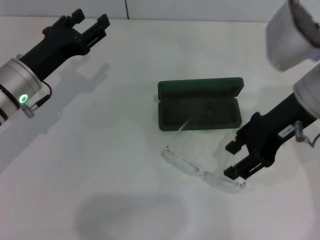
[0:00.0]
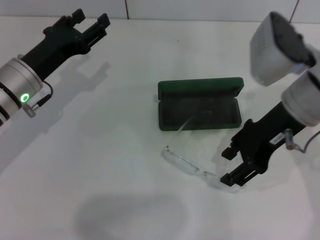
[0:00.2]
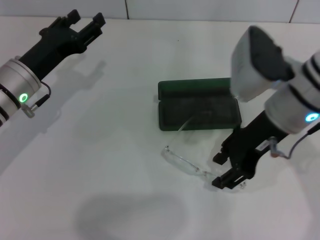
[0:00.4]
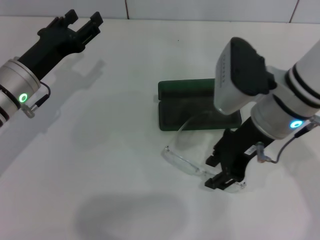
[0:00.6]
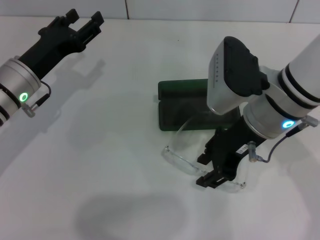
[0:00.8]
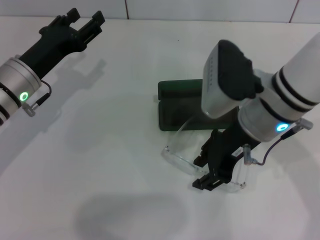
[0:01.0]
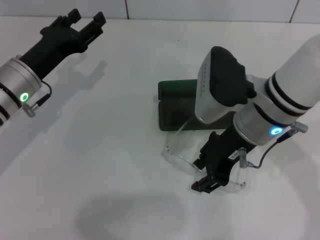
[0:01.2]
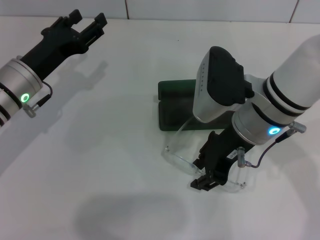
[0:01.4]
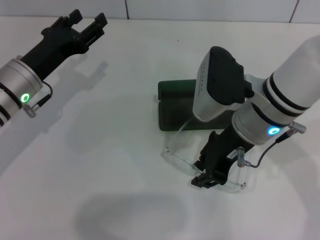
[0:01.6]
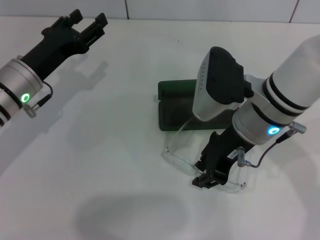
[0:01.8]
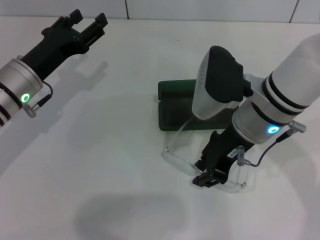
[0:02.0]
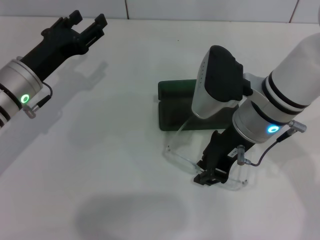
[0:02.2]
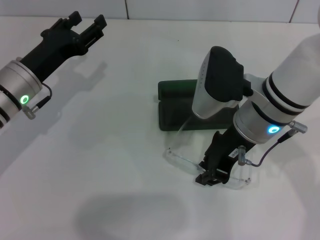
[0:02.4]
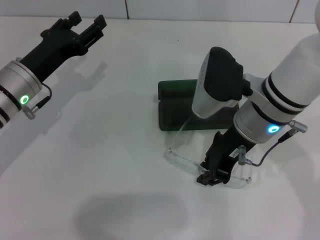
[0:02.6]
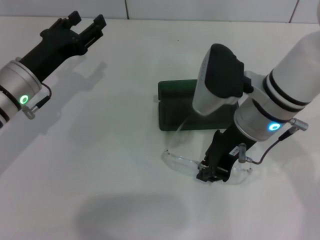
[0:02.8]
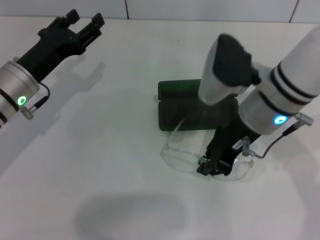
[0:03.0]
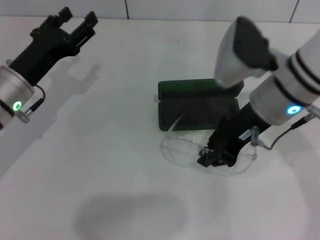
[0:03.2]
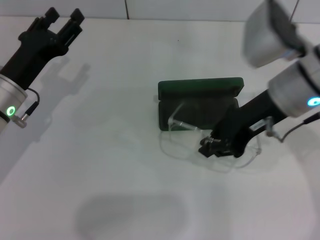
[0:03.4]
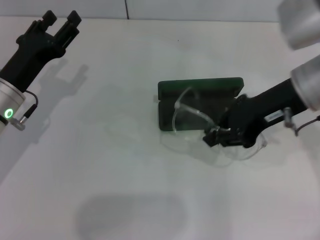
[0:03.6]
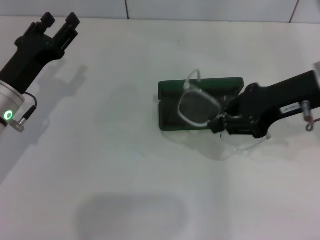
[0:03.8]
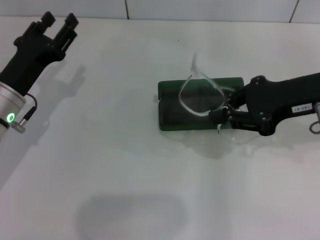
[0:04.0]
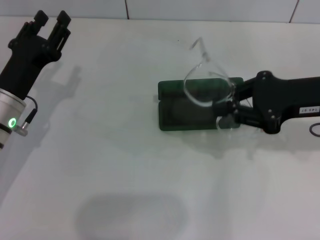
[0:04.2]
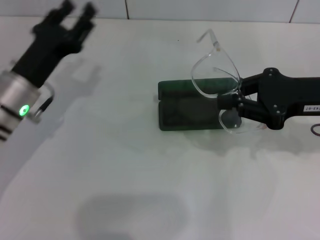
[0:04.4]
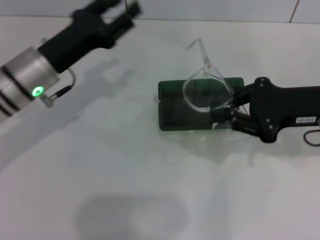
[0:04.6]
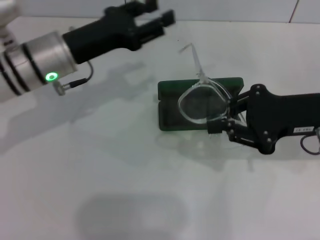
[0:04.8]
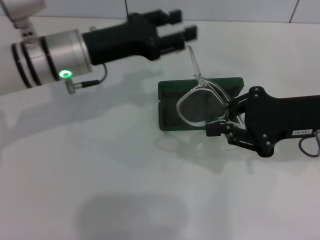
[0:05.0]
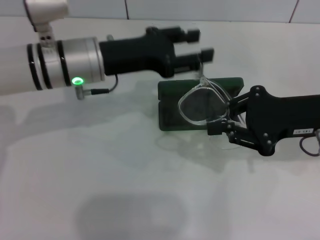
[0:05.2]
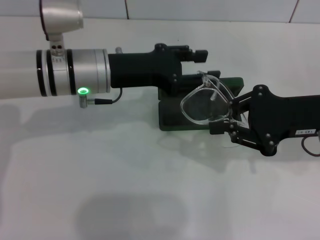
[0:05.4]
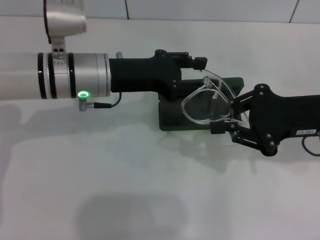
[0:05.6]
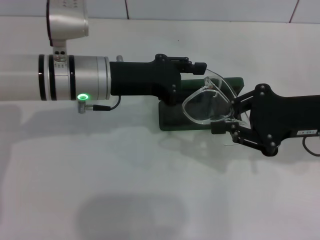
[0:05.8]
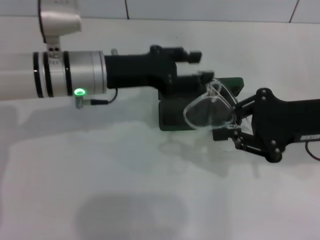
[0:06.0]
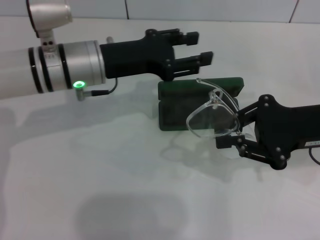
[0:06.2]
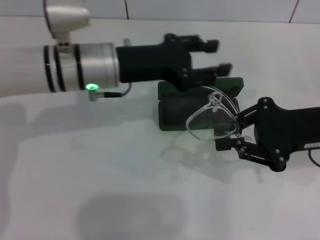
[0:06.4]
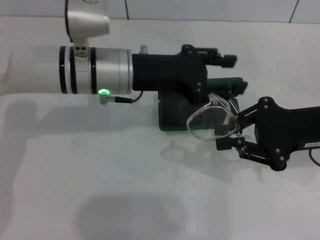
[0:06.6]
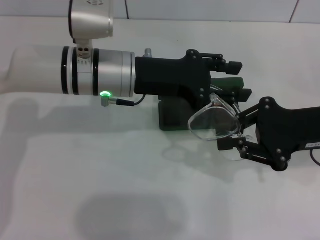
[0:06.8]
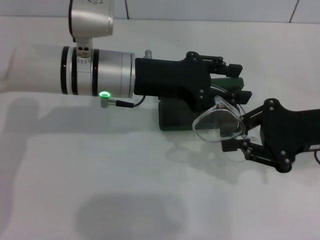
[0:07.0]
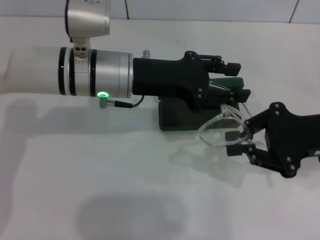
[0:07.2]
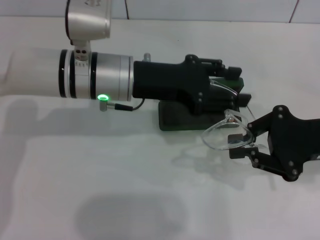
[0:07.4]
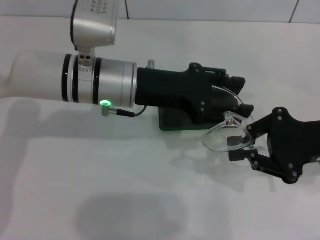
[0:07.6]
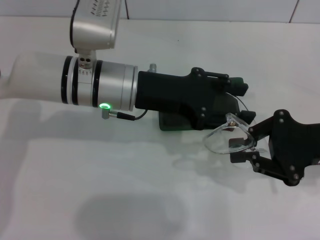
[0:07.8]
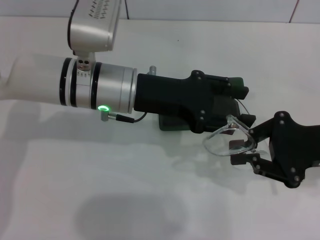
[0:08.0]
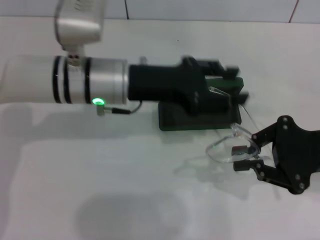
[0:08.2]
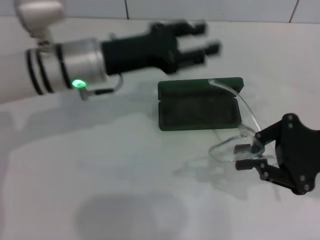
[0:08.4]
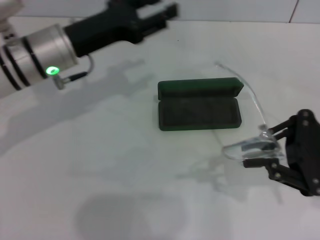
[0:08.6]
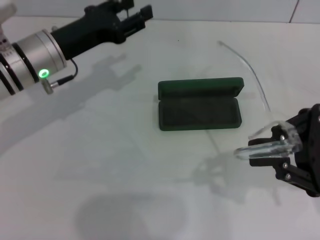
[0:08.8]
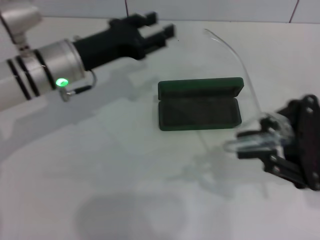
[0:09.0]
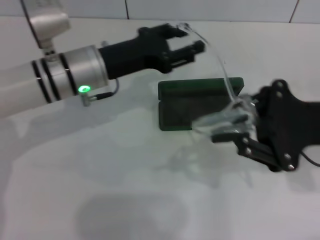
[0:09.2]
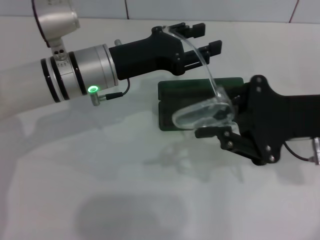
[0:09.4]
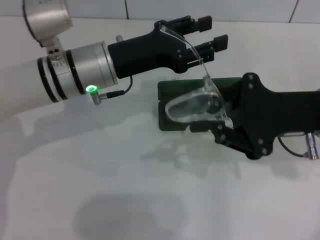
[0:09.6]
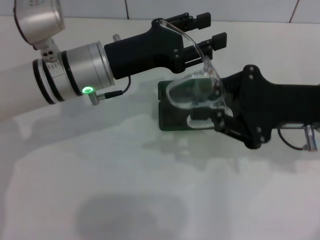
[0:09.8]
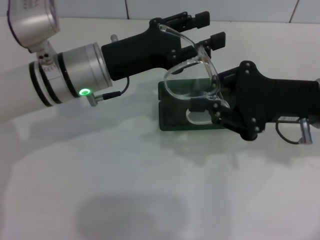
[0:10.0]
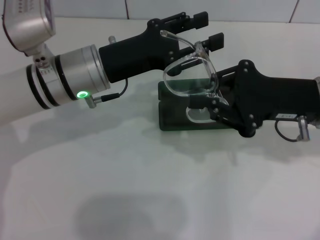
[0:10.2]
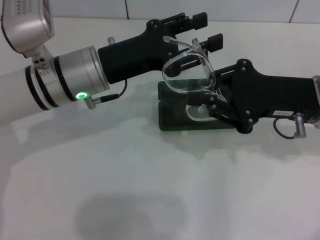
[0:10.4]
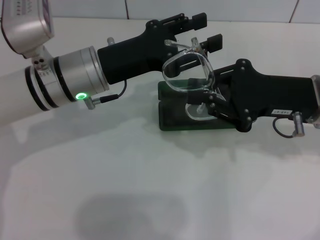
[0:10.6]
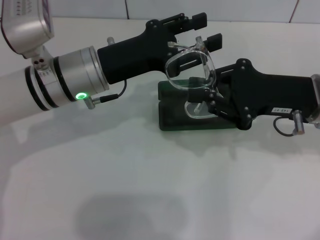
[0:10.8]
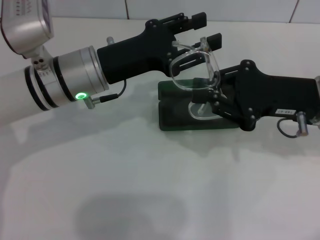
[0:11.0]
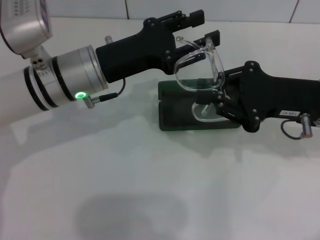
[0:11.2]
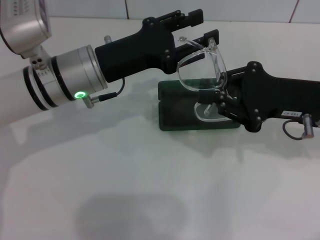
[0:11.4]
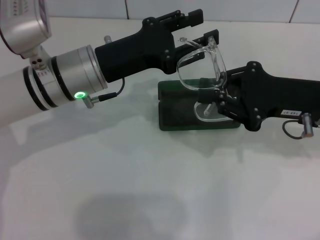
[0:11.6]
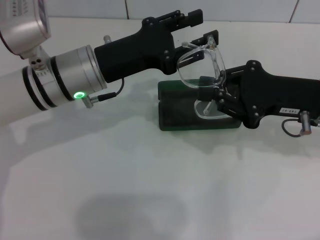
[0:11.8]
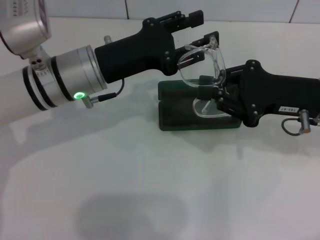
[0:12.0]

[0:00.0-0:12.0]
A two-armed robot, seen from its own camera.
Step, 0:00.0 to 0:02.6: Grab the eyeglass frame with your right hand.
0:00.0 to 0:01.6: The right gripper is displaced to the left by roughly 5 cm.
0:01.6 to 0:03.0: The right gripper closes its fingers.
0:03.0 to 0:04.4: The right gripper moves to the right, roughly 15 cm.
0:04.4 to 0:06.0: The left gripper shifts some 10 cm to the right and upward.
0:07.6 to 0:09.0: The left gripper heads to the left, covering roughly 5 cm.
0:09.0 to 0:10.4: The right gripper is displaced forward by roughly 5 cm.
0:10.4 to 0:12.0: The grippers stay close to where they were, moving slightly.

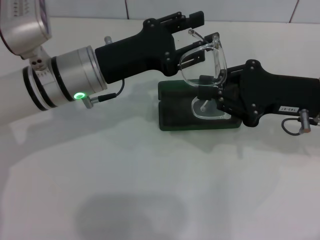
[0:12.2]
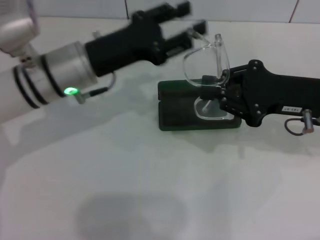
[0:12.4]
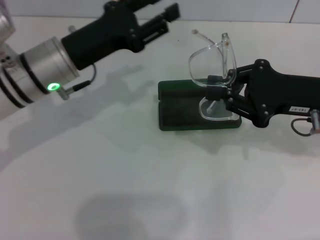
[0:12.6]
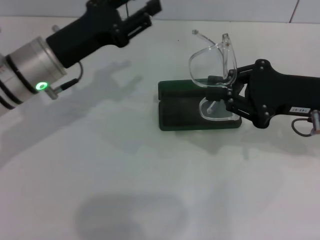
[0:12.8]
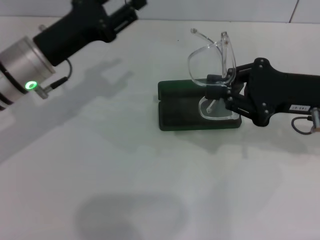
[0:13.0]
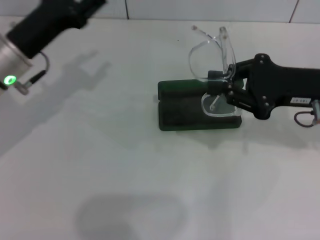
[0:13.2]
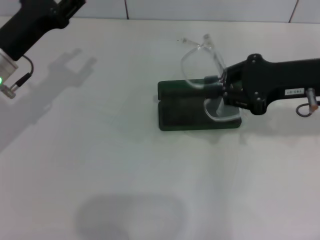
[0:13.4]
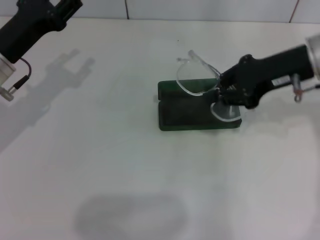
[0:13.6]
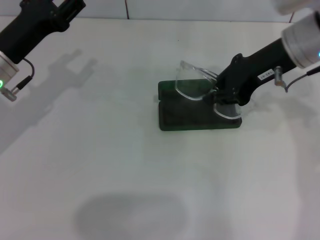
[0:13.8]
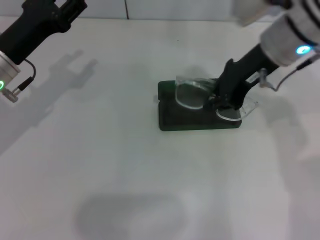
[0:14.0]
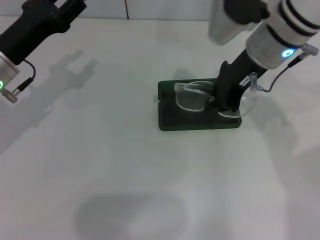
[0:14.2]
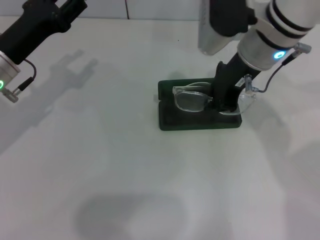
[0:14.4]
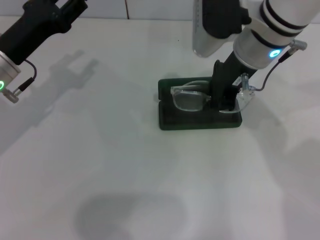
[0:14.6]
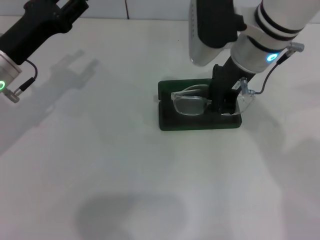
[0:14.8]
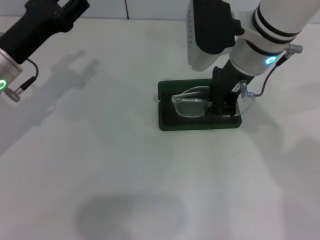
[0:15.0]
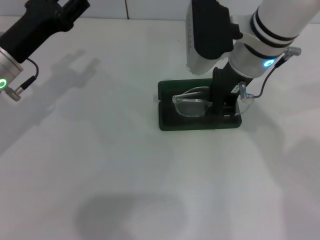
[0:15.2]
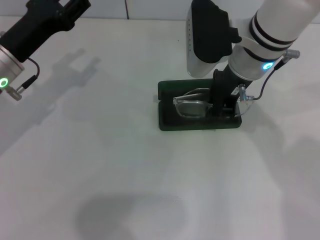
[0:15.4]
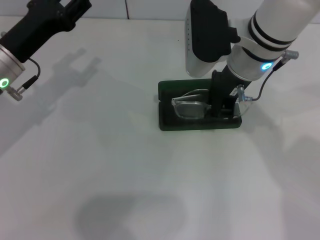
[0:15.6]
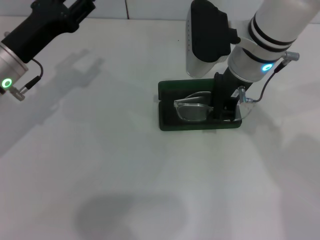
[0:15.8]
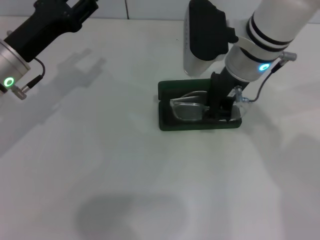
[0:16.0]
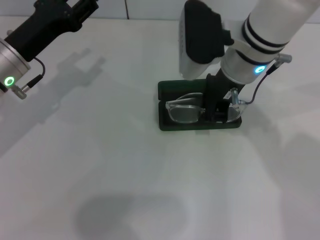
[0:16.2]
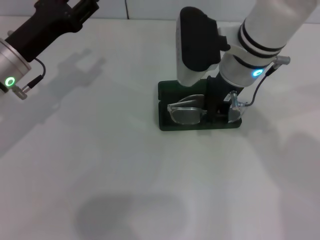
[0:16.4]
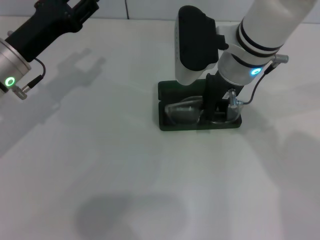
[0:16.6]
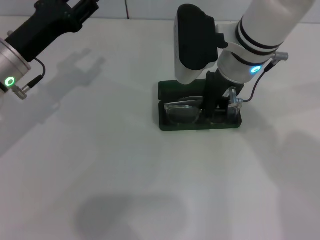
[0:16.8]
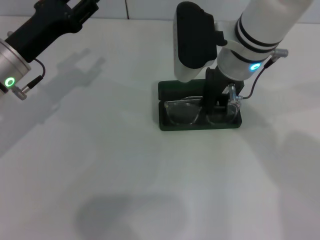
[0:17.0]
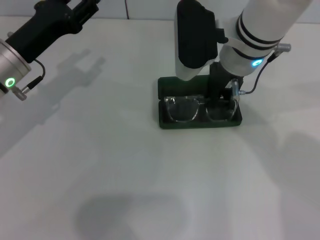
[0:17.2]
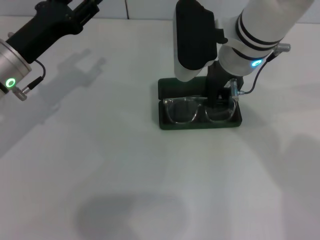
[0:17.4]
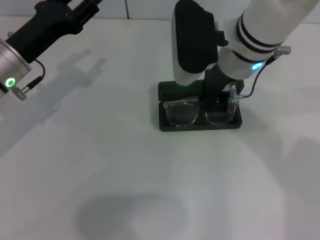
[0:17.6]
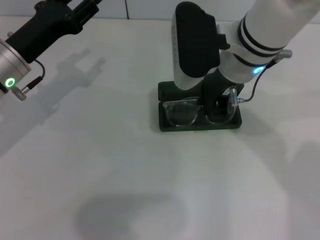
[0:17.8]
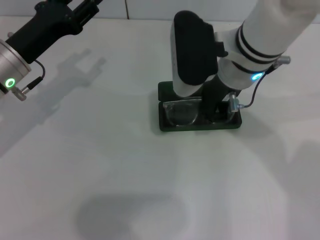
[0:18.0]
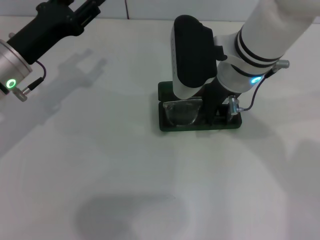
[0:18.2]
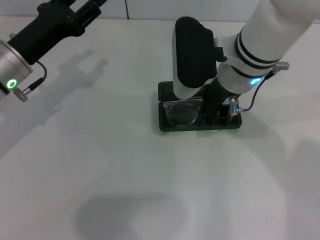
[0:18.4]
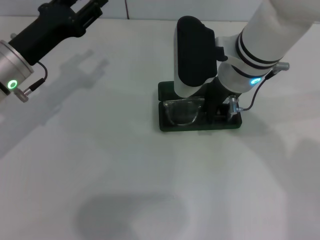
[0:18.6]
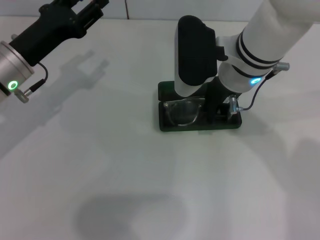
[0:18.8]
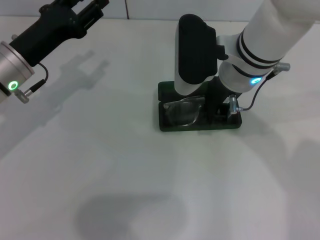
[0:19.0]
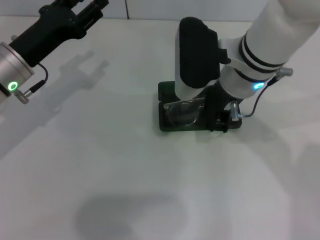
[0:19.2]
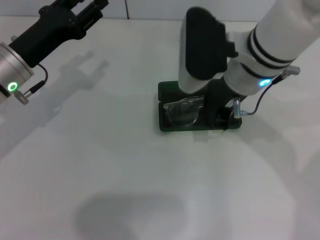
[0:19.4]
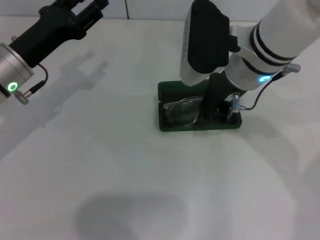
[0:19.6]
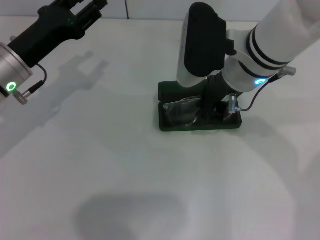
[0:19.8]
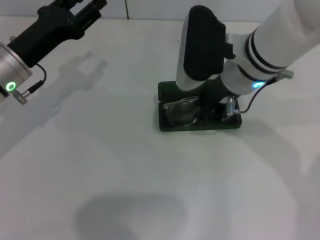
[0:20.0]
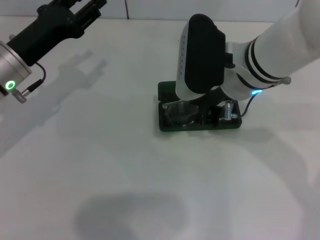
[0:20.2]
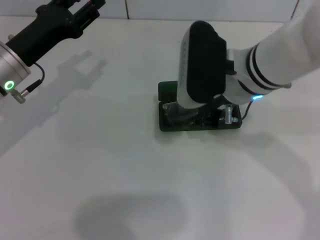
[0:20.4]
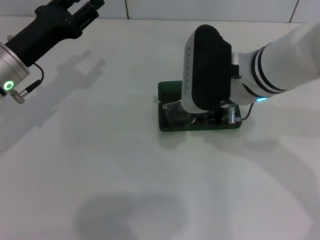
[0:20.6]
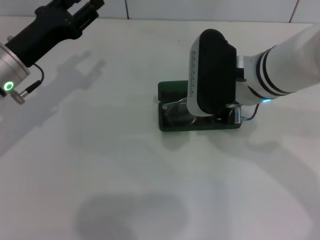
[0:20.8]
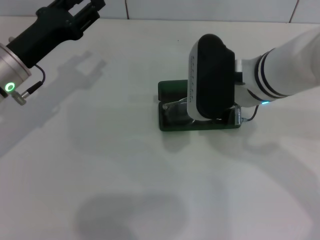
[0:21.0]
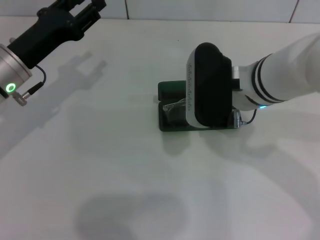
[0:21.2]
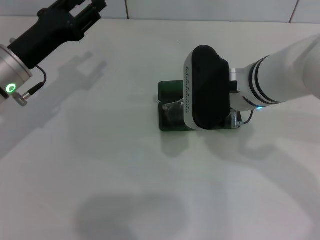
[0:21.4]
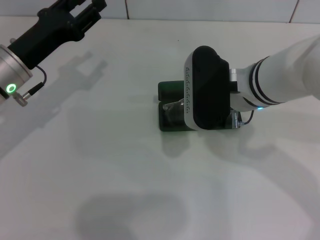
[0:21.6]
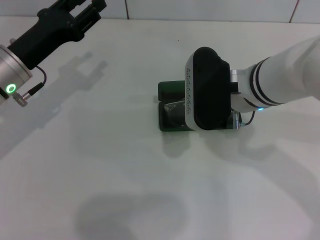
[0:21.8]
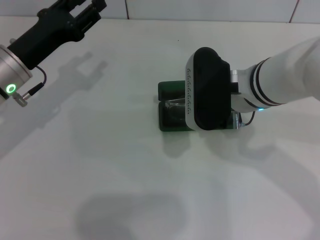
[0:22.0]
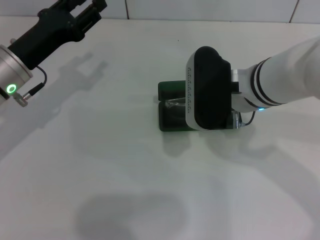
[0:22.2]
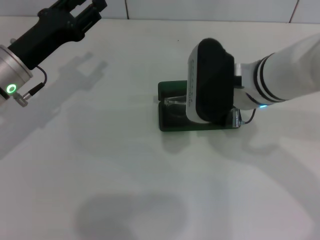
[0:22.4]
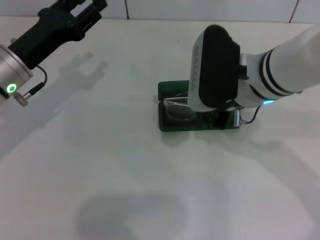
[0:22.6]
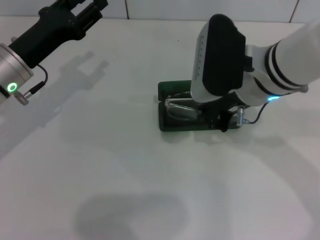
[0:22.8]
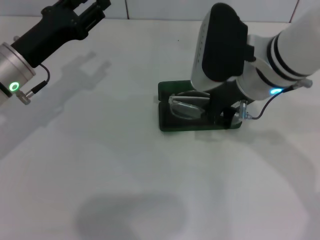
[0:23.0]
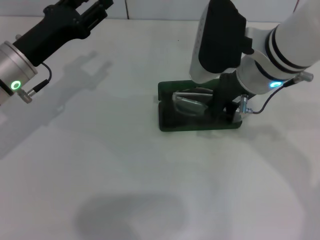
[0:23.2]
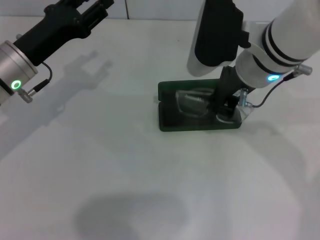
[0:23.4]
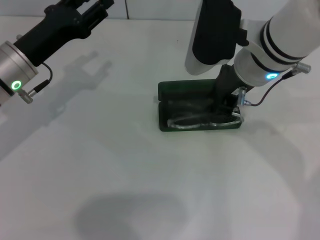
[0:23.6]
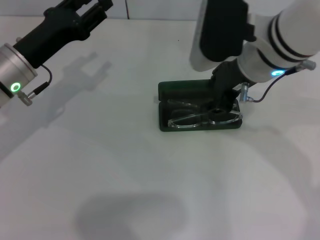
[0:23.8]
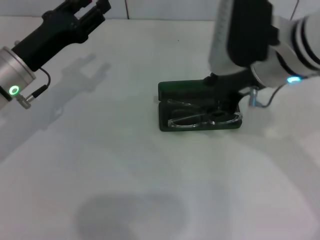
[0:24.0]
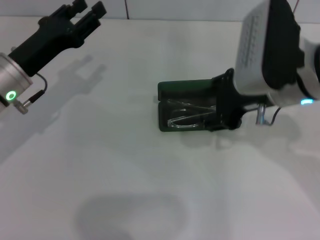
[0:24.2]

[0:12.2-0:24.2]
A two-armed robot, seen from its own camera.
0:12.2 to 0:13.8: The right gripper heads upward and forward, covering roughly 10 cm; the left gripper shifts about 10 cm to the left.
0:13.8 to 0:15.2: The right gripper shifts roughly 10 cm to the left.
0:15.2 to 0:19.8: There are only small adjustments of the grippers.
0:19.8 to 0:22.6: There are only small adjustments of the grippers.
0:22.6 to 0:24.2: The right gripper moves about 5 cm, and opens.
